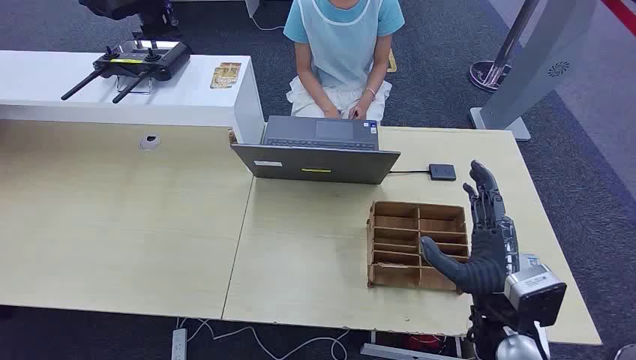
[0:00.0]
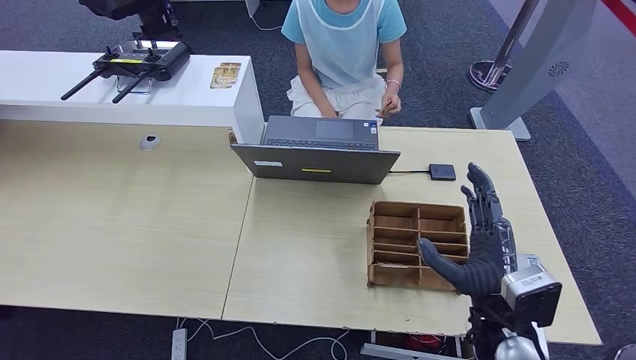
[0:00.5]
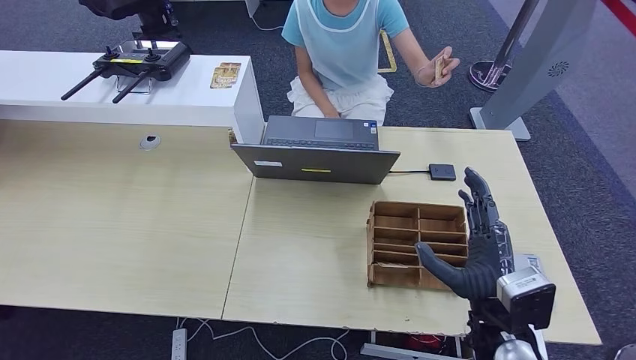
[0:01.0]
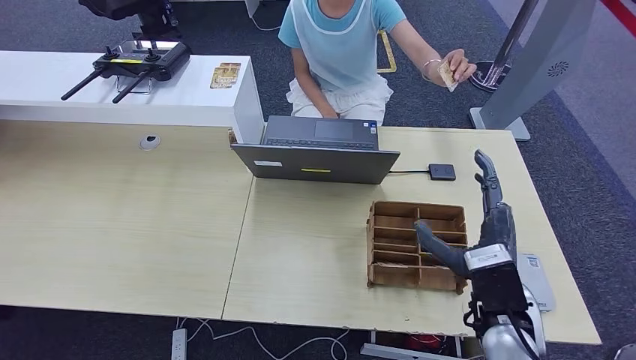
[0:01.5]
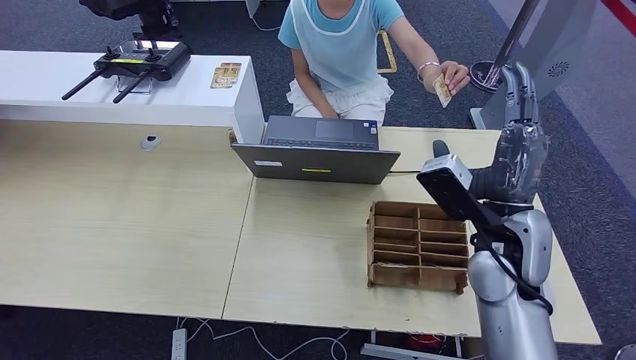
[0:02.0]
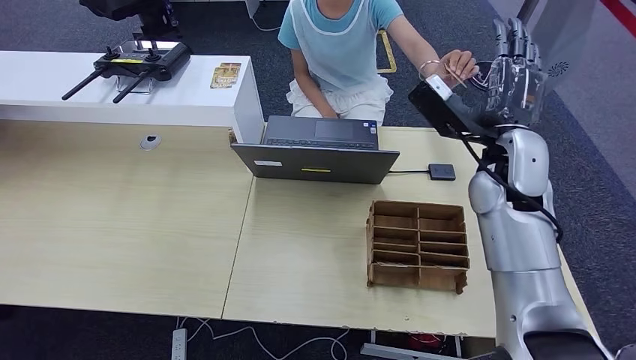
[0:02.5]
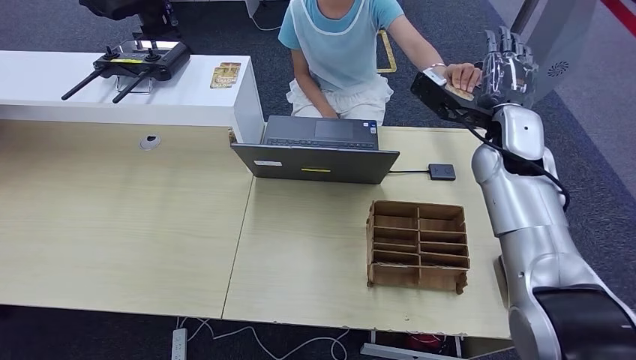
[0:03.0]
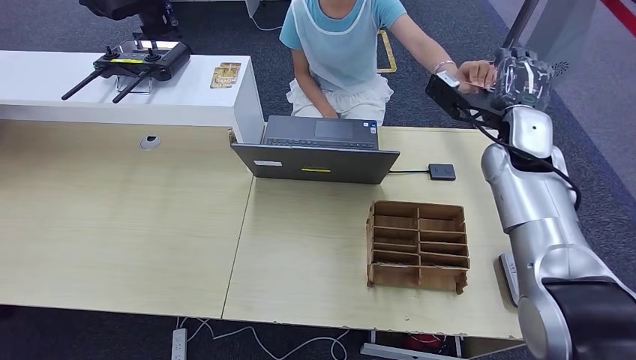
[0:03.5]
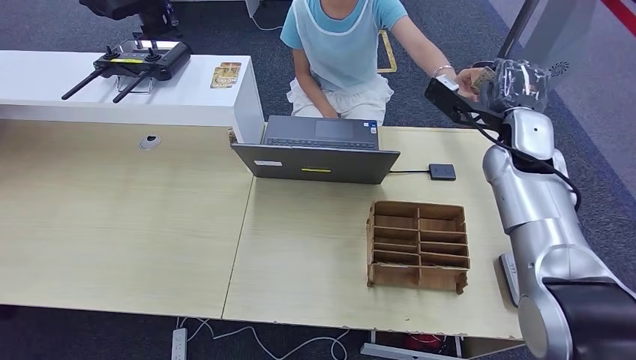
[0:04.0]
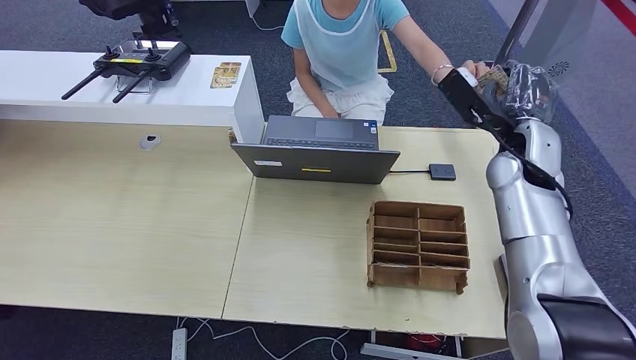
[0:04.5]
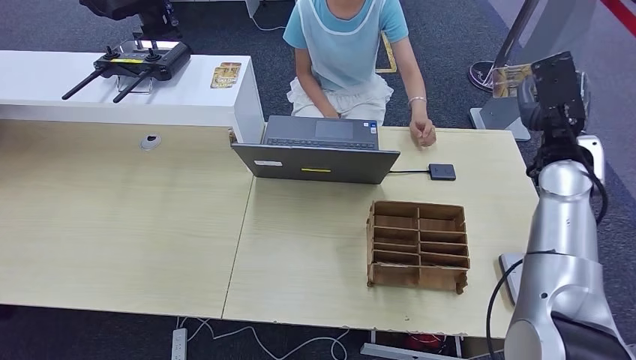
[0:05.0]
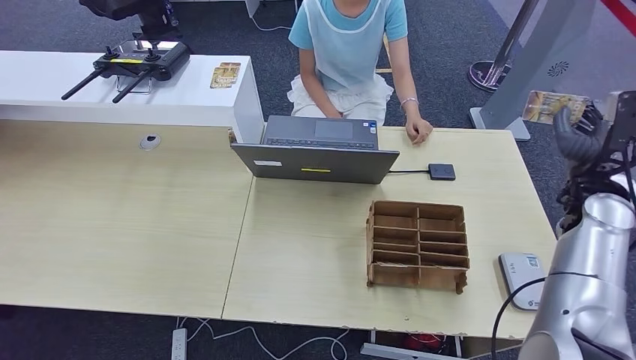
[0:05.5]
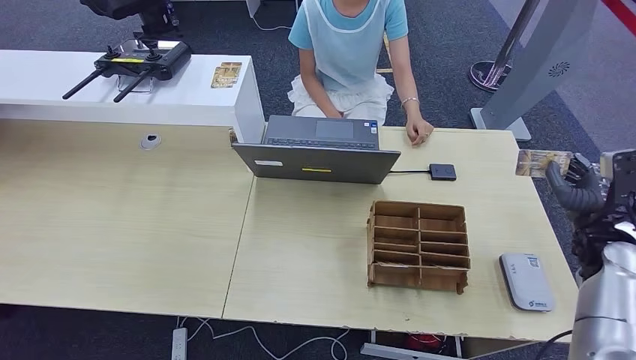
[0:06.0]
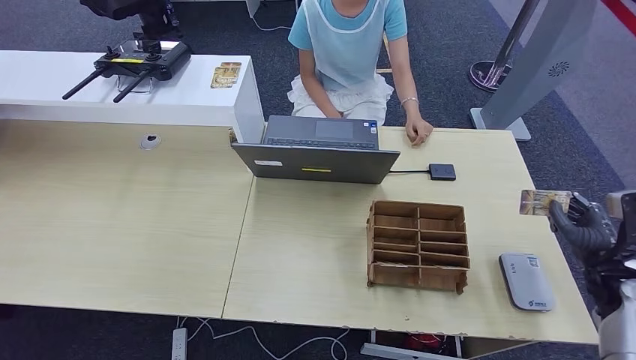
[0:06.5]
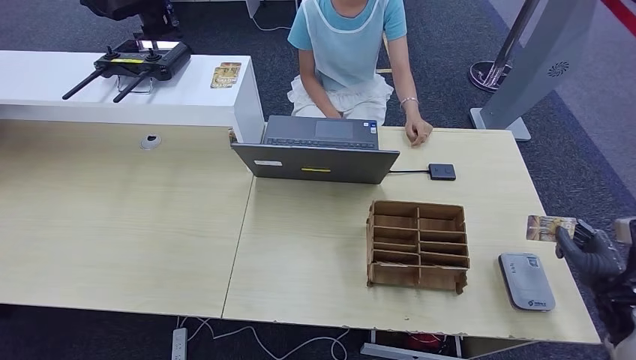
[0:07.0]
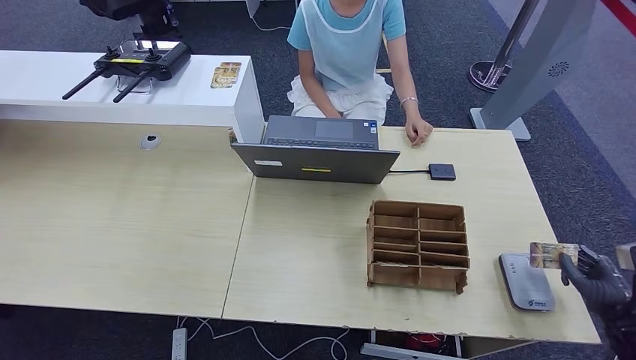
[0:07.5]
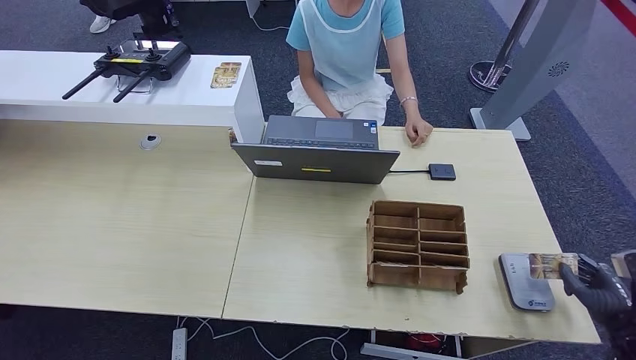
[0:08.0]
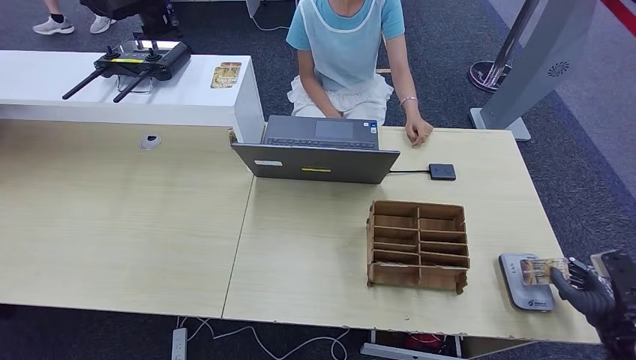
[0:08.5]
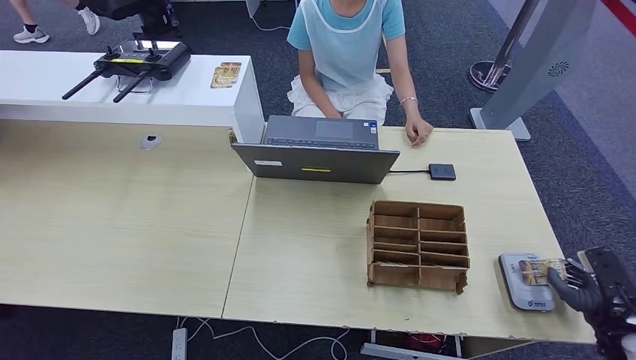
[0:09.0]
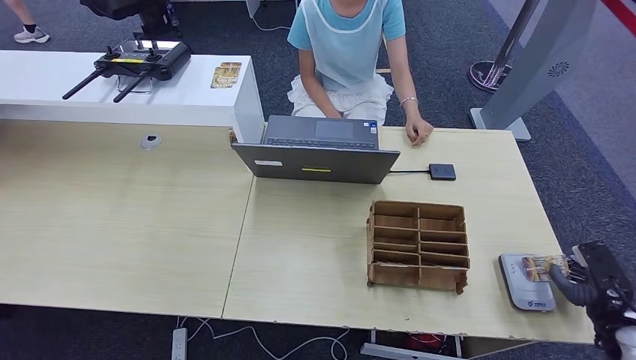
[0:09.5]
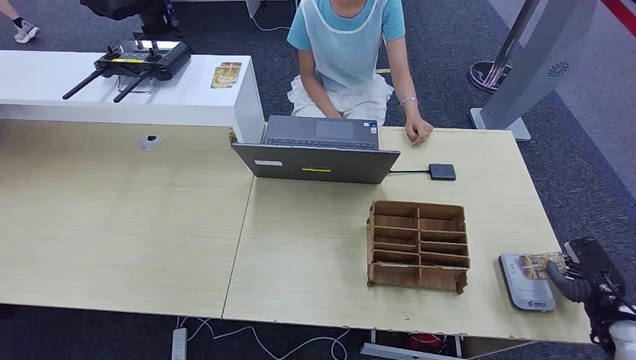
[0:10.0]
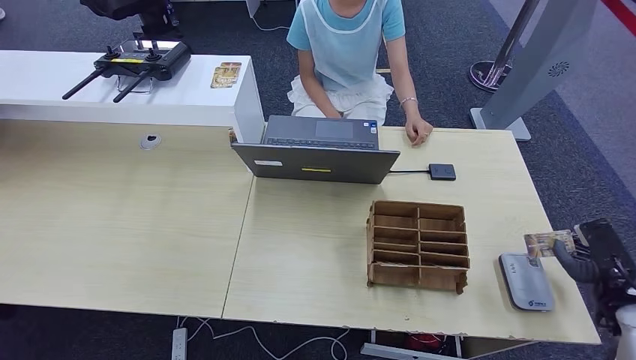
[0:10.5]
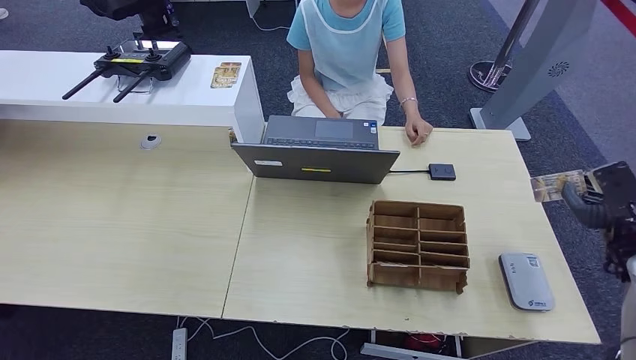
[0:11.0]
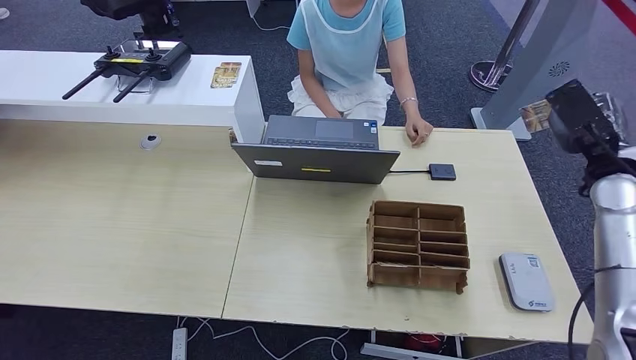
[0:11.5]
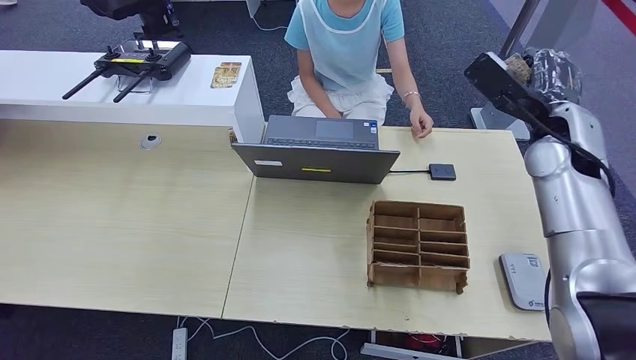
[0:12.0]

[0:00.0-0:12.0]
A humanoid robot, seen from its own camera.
Step, 0:00.0 to 0:05.0: Take the ID card from the person's hand.
Step, 0:05.5 to 0:09.5: Place the ID card on the card reader.
0:02.0 to 0:04.0: The right hand moves forward and to the right, some 15 cm.
0:04.0 to 0:06.0: The right hand heads to the right, backward and downward, covering roughly 25 cm.
0:06.0 to 0:08.0: The right hand moves backward, downward and to the right, some 20 cm.
0:10.0 to 0:12.0: The right hand shifts roughly 35 cm upward, forward and to the left.

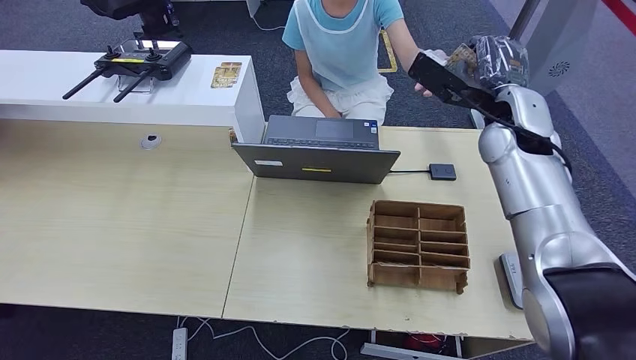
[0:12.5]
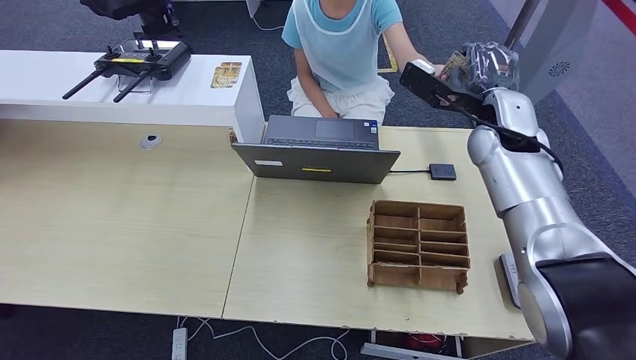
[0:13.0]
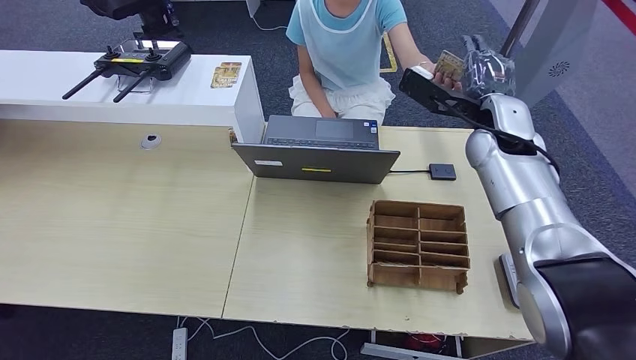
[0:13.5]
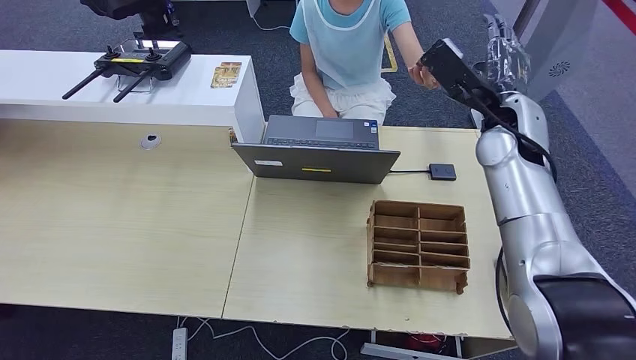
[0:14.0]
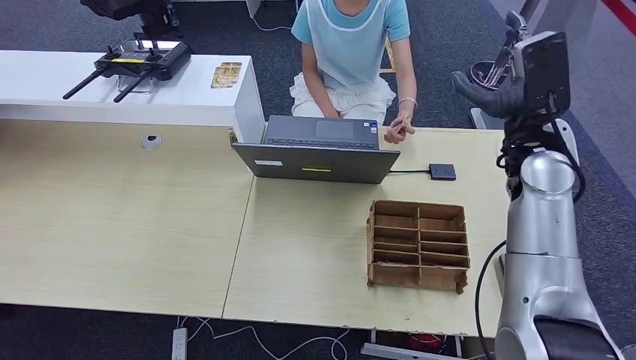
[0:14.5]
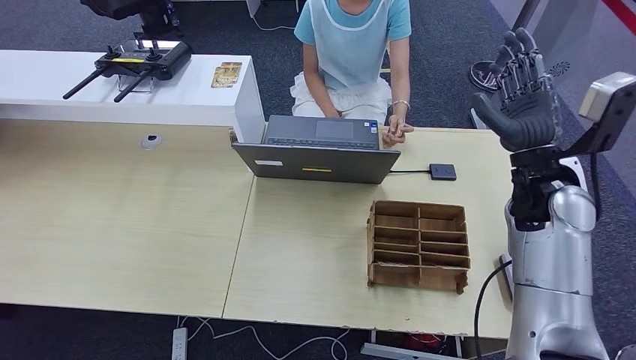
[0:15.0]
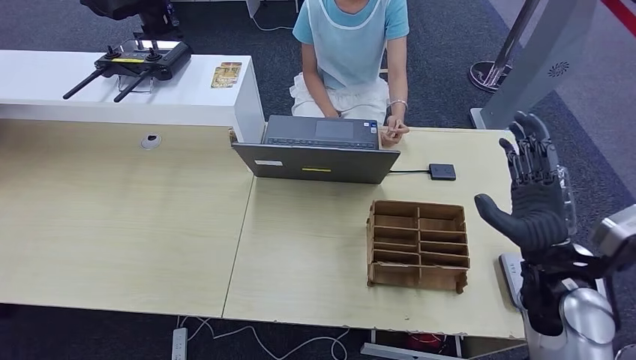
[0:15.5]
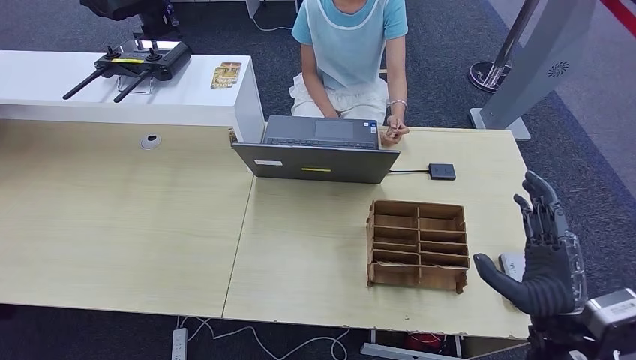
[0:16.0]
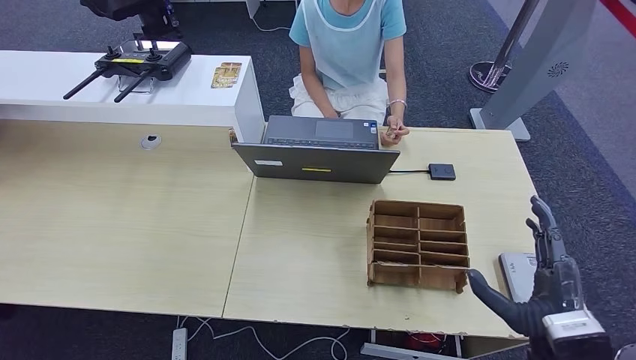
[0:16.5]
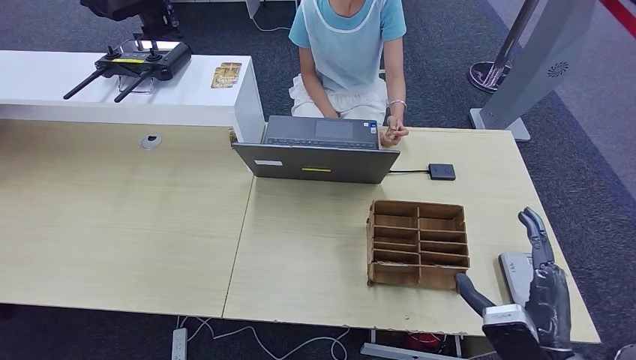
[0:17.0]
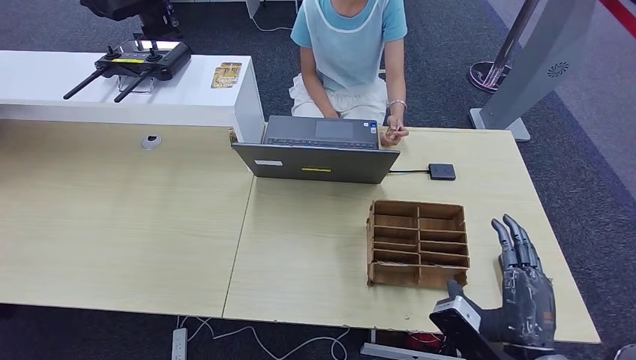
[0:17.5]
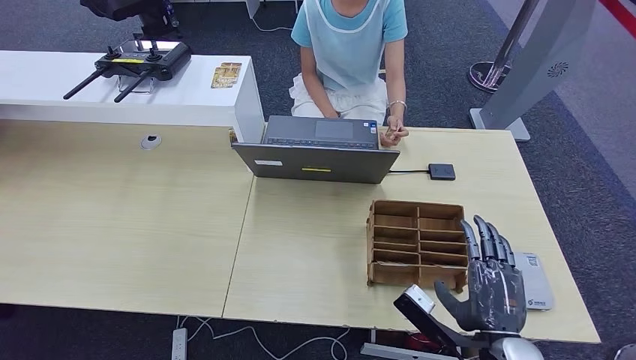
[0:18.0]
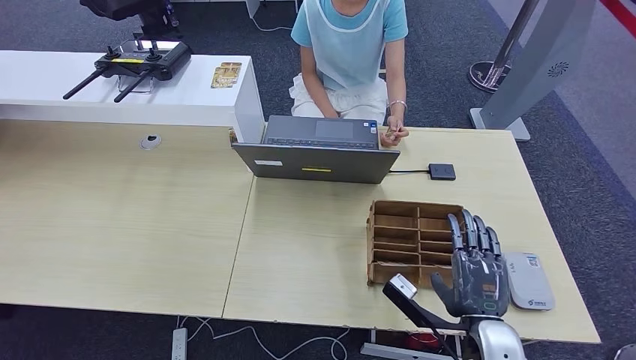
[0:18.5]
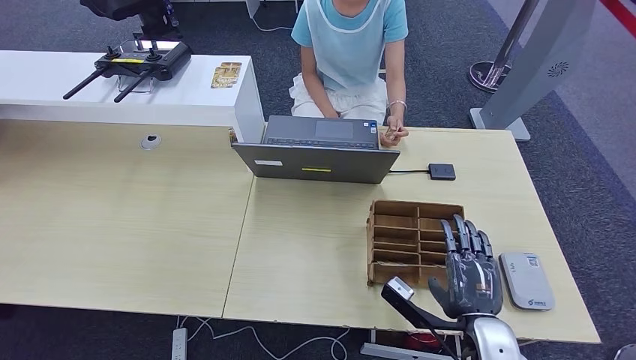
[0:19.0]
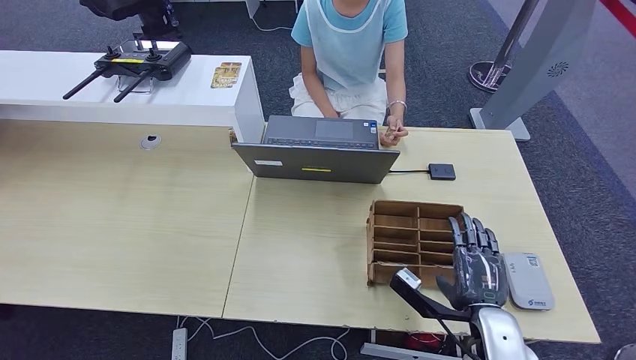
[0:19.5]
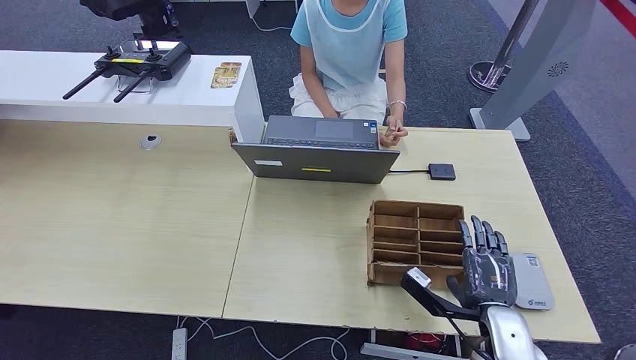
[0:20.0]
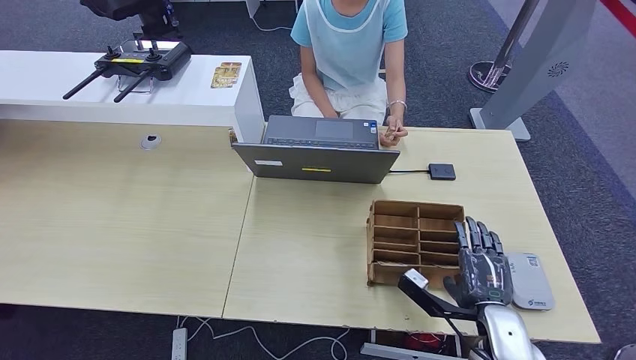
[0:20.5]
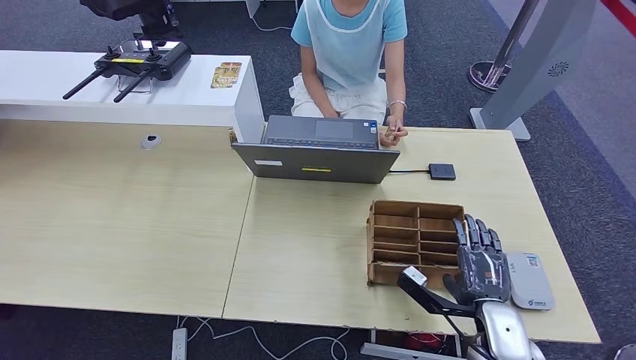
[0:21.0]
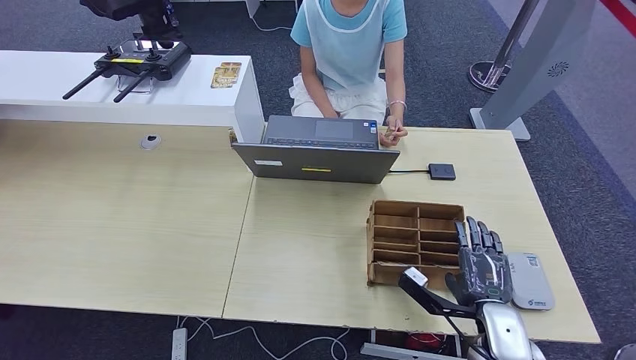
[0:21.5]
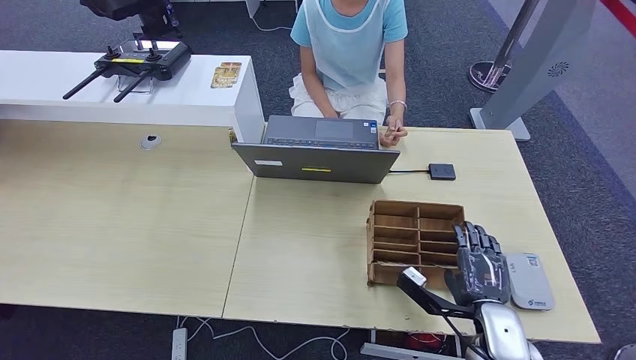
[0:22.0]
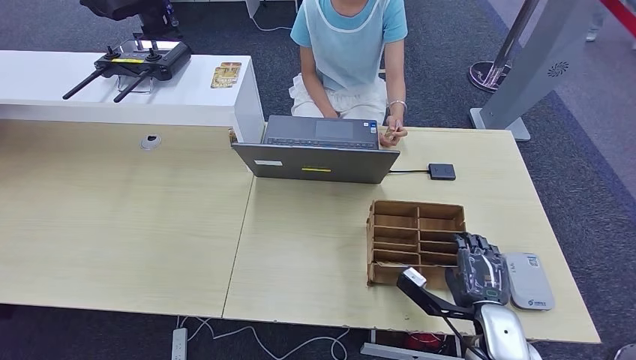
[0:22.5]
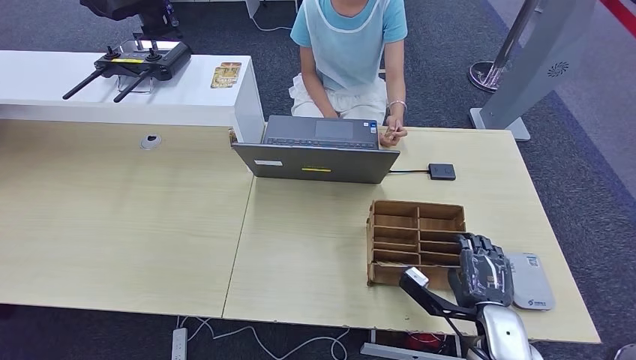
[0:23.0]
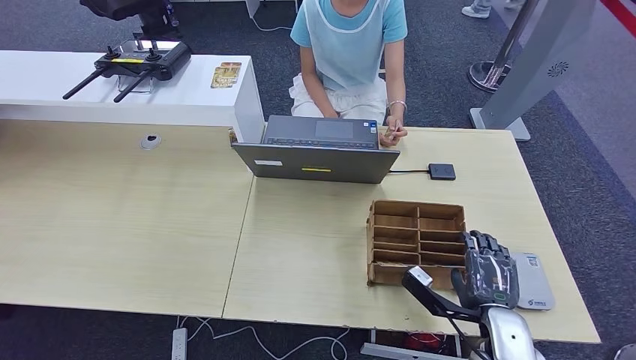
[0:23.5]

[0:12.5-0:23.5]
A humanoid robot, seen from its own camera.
Step, 0:12.5 to 0:14.5: Hand the ID card to the person.
0:12.5 to 0:14.5: The right hand ends up some 5 cm from where it was.
0:14.5 to 0:16.0: The right hand travels backward and downward by some 25 cm.
0:16.0 to 0:18.0: The right hand travels to the left and downward by some 10 cm.
0:18.0 to 0:20.0: The right hand changes place by about 10 cm.
0:20.0 to 0:23.5: The two hands keep their place.
